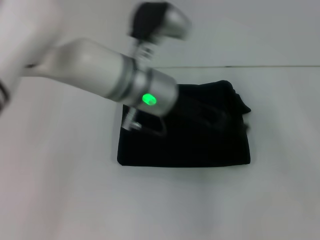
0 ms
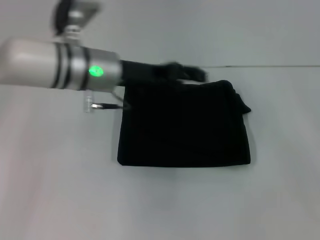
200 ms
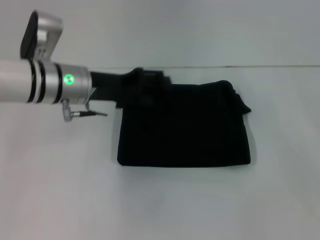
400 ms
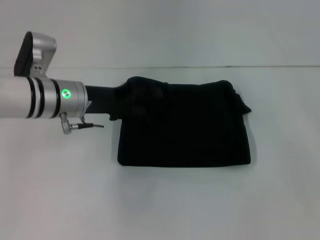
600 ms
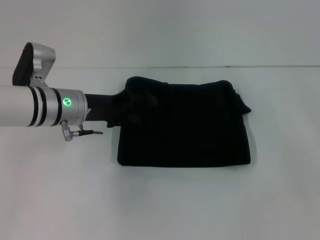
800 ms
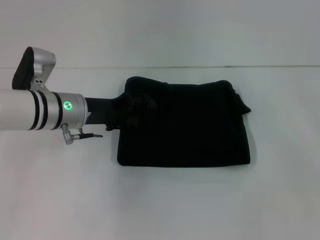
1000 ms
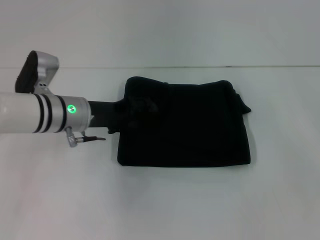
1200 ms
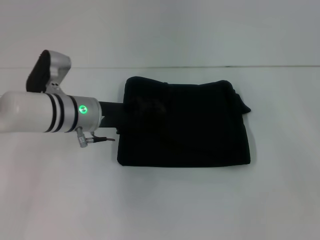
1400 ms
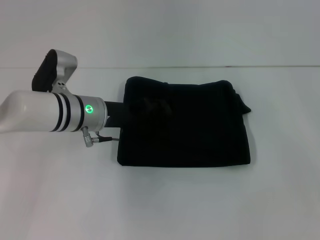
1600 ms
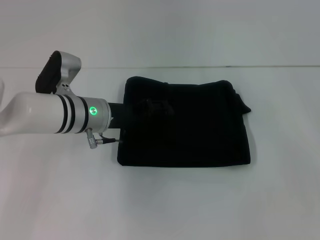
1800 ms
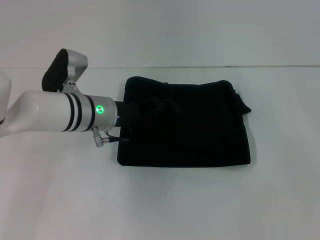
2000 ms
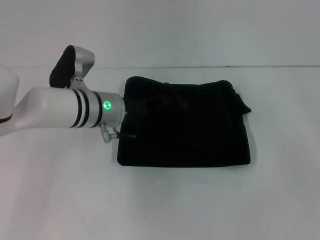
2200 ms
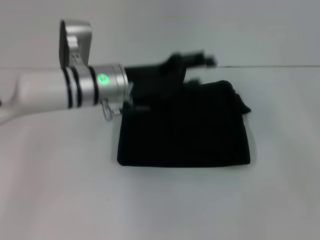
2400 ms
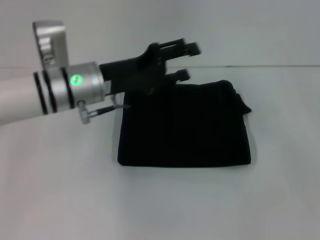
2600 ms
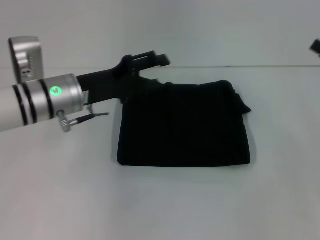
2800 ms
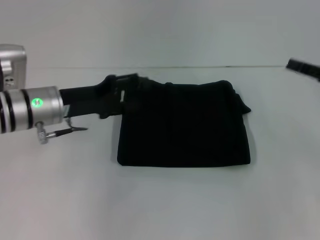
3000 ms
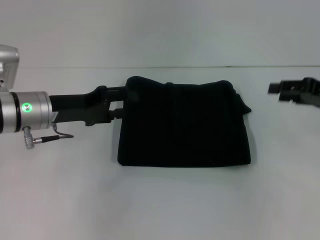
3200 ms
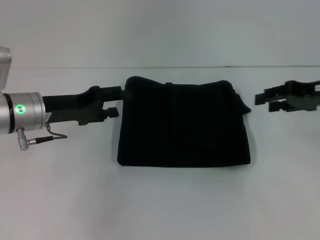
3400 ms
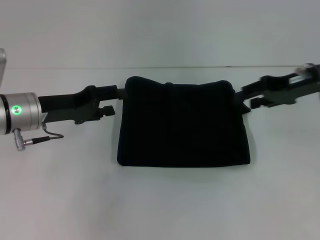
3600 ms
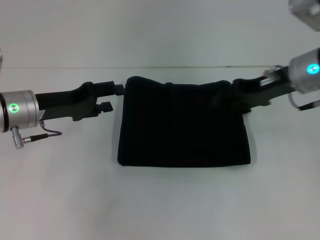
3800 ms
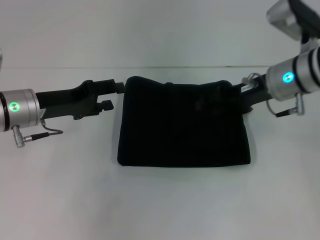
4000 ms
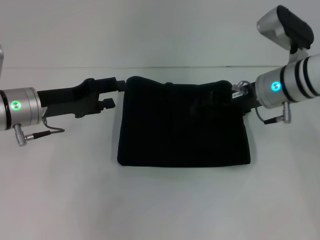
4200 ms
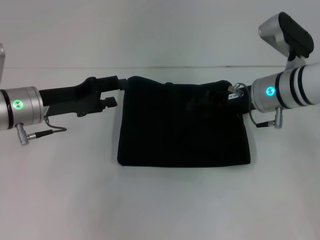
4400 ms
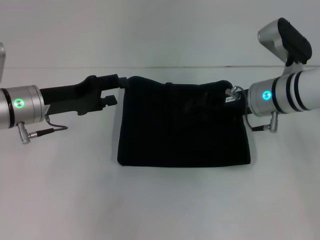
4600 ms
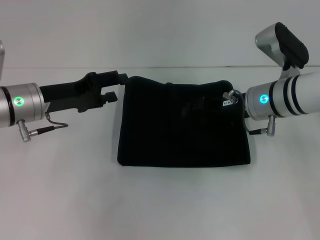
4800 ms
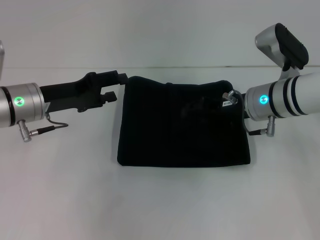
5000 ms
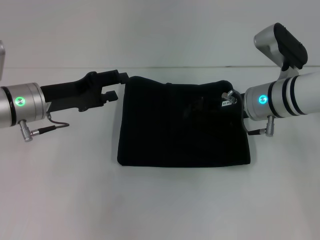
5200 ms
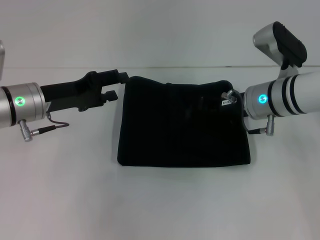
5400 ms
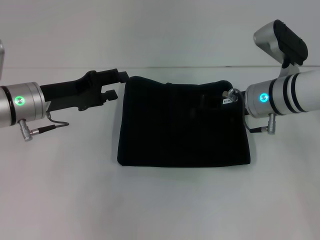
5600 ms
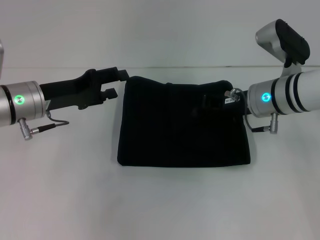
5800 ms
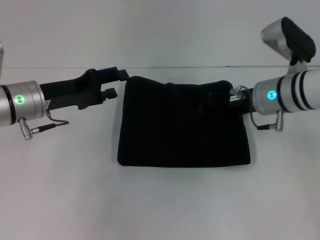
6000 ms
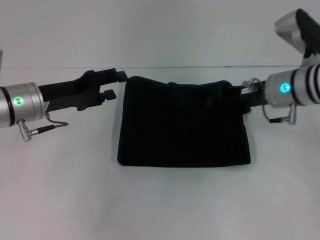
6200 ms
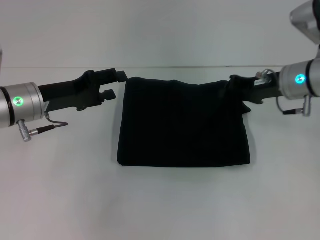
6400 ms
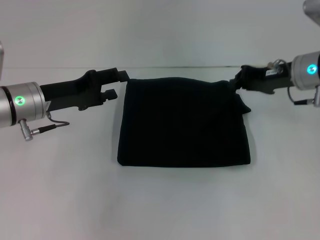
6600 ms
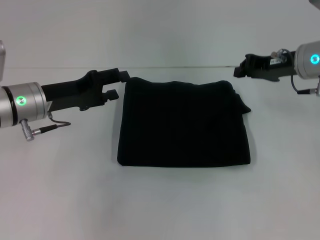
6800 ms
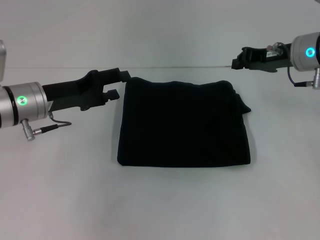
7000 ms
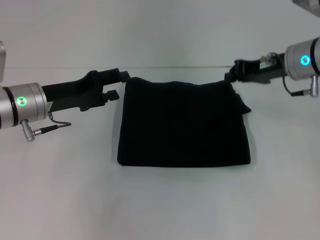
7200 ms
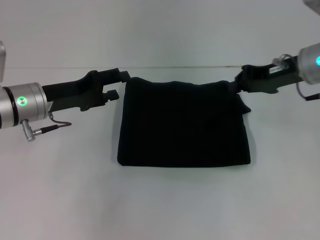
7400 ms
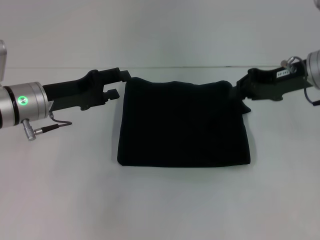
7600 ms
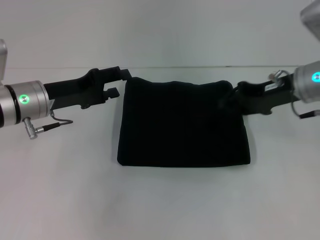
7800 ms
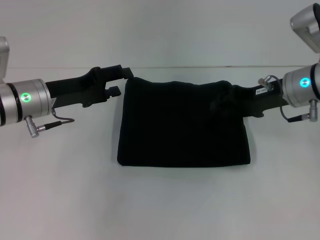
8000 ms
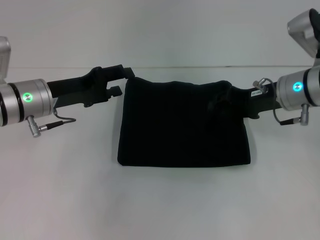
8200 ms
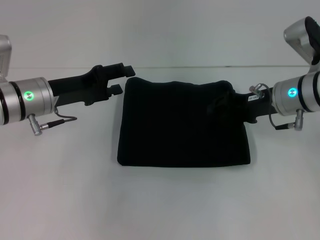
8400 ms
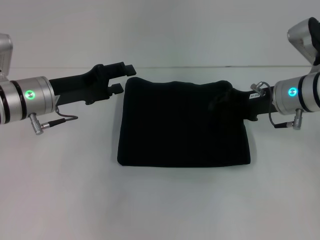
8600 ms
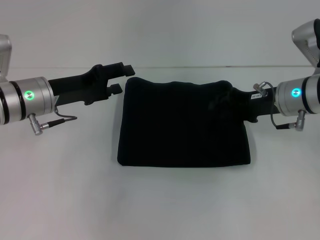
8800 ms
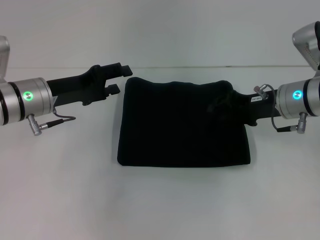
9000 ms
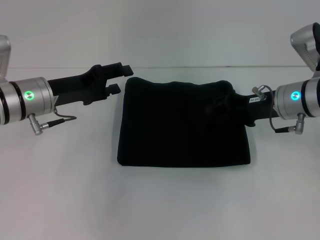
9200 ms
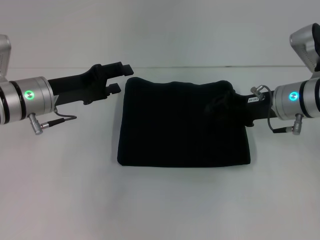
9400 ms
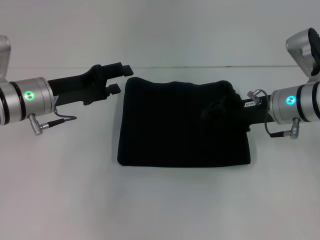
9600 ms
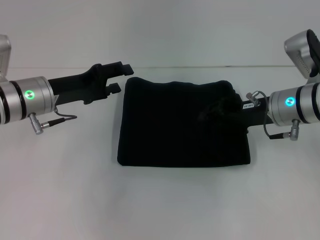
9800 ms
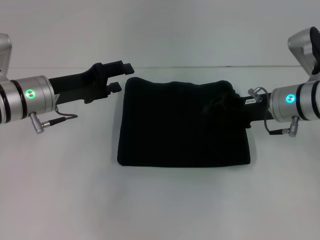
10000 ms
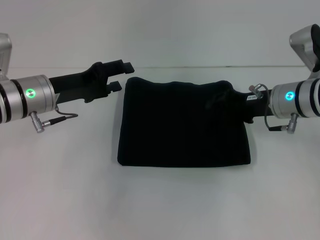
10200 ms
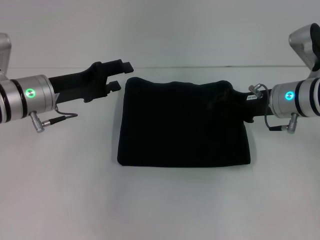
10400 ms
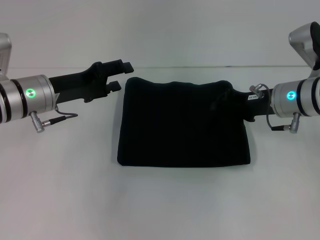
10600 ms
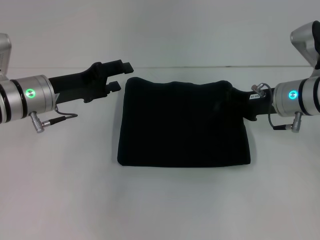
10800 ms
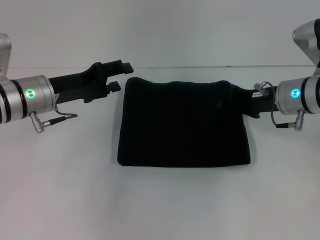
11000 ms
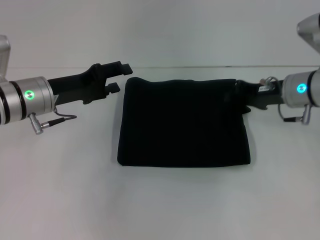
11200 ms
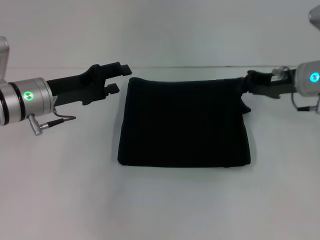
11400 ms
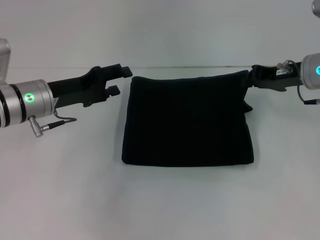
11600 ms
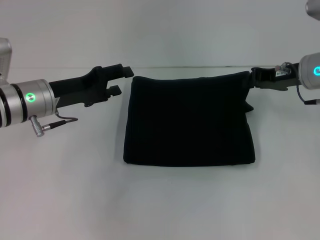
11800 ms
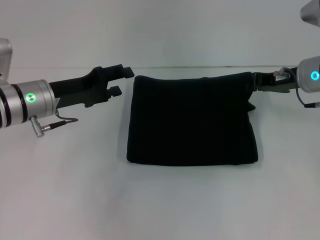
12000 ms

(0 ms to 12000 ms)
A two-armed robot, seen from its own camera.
0 ms - 1600 ms: The left gripper goes roughly 15 cm to the left and downward.
1600 ms - 3000 ms: The left gripper is displaced to the left by some 5 cm.
3000 ms - 4400 ms: The right gripper heads to the left, covering some 15 cm.
4400 ms - 6000 ms: The right gripper closes up.
6000 ms - 7600 ms: The right gripper travels to the right and upward by some 10 cm.
7600 ms - 9000 ms: The right gripper moves downward, about 5 cm, and opens its fingers.
9000 ms - 10400 ms: The grippers move only a little.
10400 ms - 12000 ms: The right gripper shifts by about 5 cm.

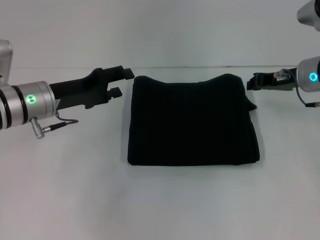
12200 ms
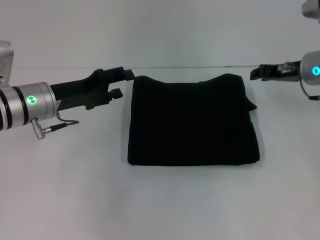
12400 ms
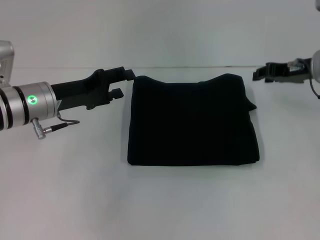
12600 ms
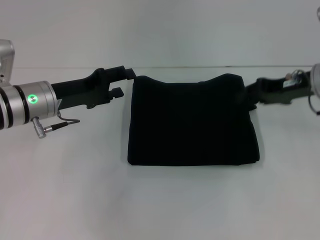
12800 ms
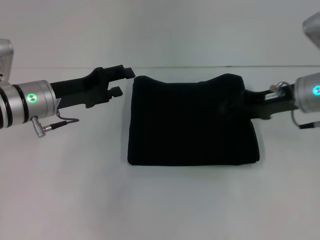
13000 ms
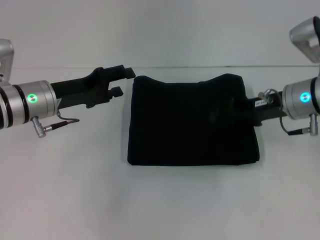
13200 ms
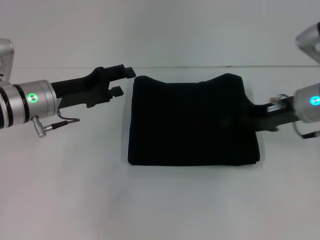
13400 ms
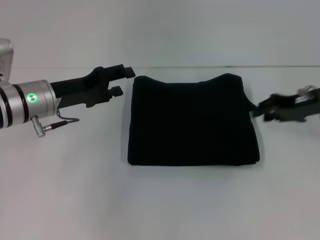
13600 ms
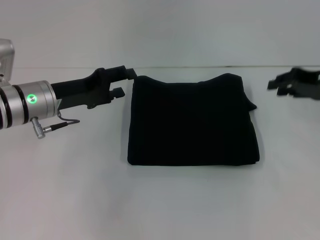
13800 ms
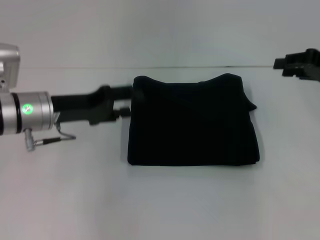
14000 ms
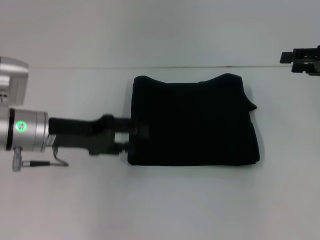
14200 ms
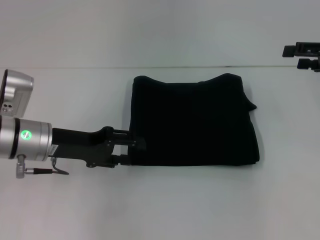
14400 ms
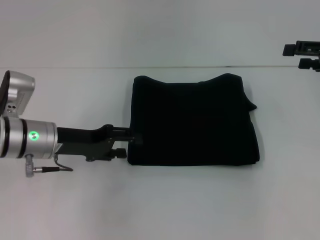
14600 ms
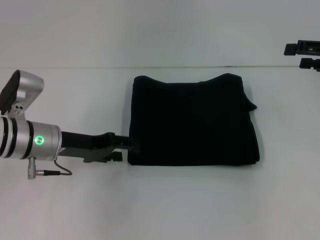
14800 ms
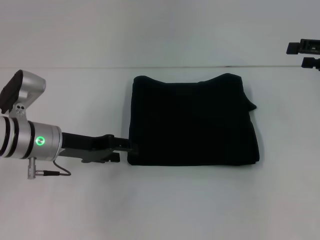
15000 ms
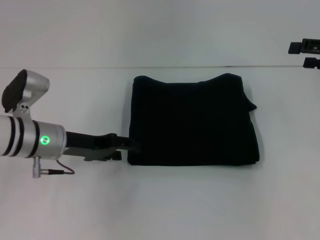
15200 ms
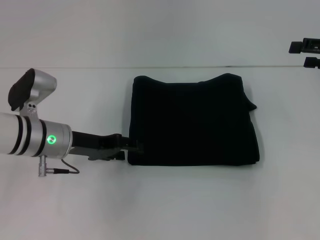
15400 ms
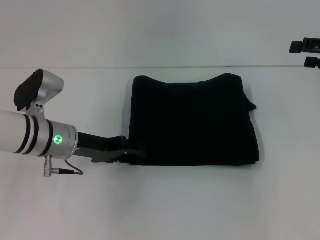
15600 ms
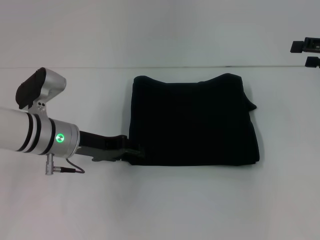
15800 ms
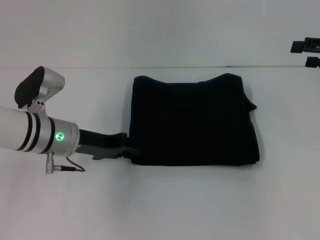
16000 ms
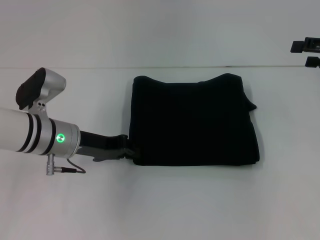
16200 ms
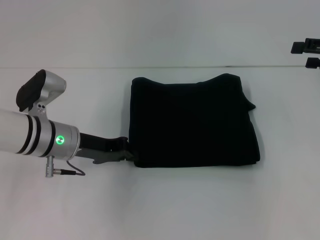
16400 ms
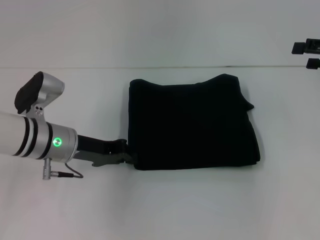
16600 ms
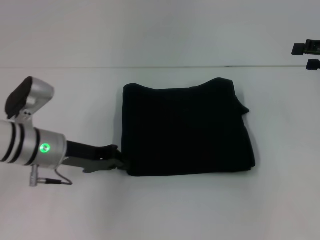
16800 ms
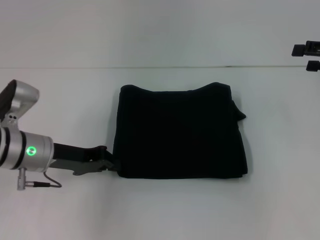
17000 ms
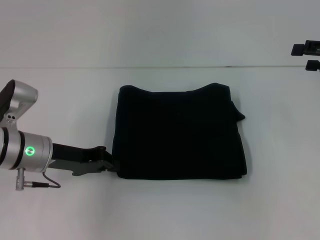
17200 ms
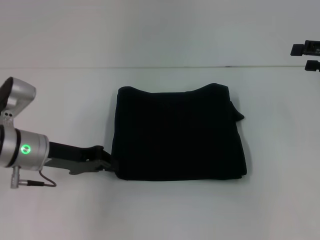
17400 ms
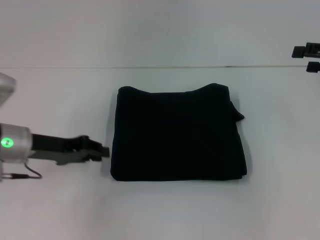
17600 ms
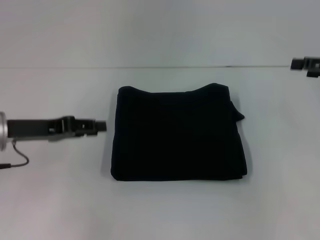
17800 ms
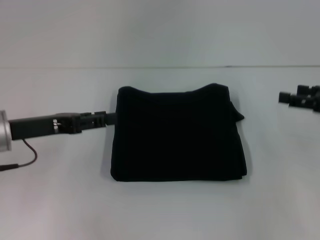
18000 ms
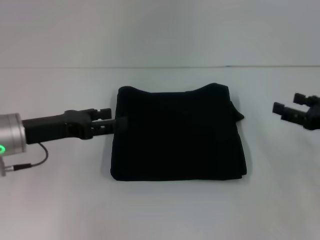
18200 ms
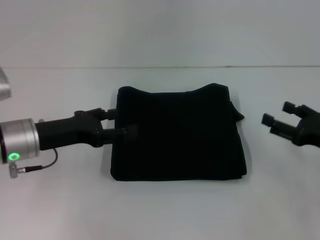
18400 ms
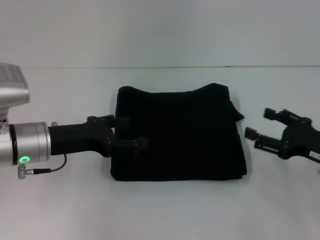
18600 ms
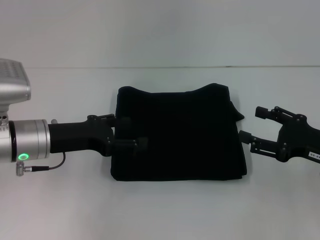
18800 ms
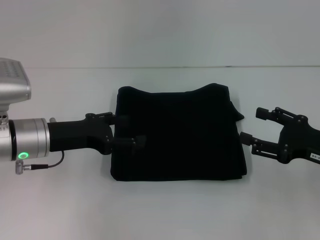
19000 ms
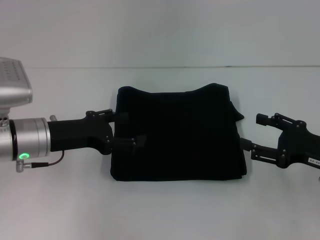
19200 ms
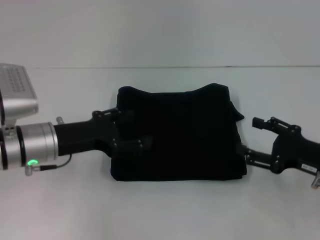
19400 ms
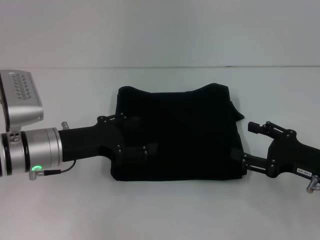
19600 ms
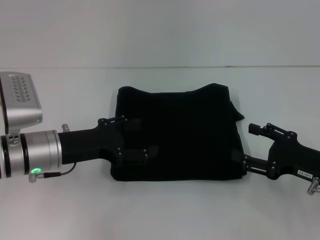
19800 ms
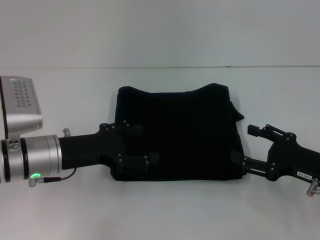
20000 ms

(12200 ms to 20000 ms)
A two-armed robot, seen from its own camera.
12200 ms - 13800 ms: The right gripper shifts about 5 cm to the right.
13800 ms - 15400 ms: The right gripper changes place by roughly 5 cm, and opens its fingers.
15400 ms - 16800 ms: The left gripper closes.
16800 ms - 18400 ms: The left gripper opens. The right gripper shifts approximately 15 cm downward and backward.

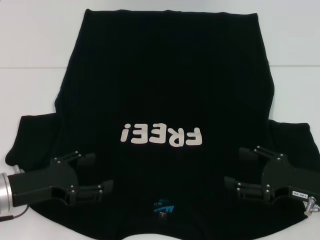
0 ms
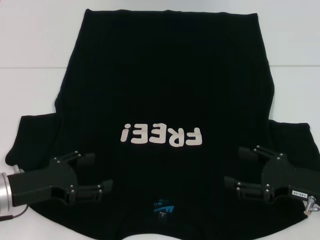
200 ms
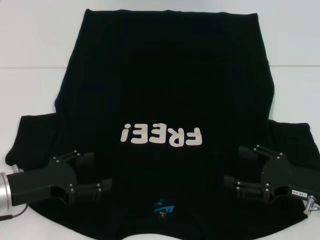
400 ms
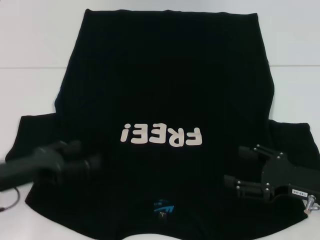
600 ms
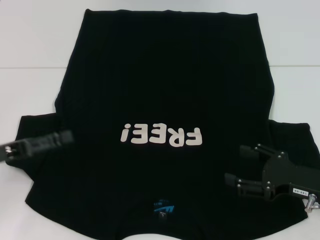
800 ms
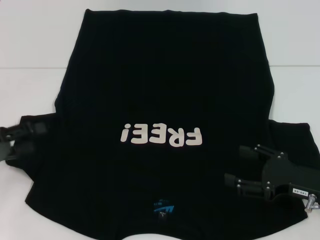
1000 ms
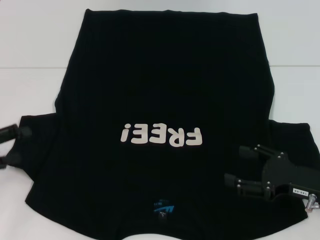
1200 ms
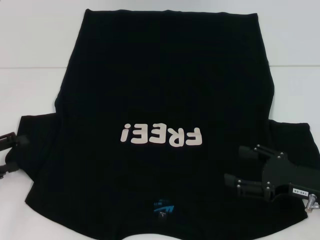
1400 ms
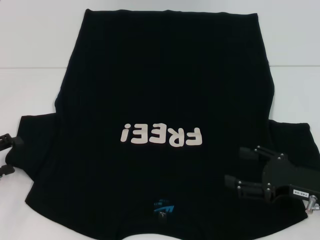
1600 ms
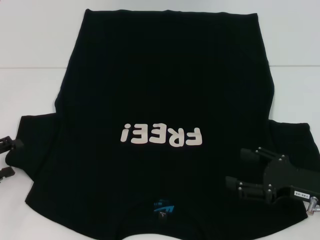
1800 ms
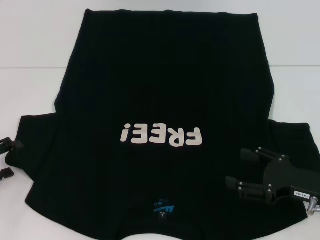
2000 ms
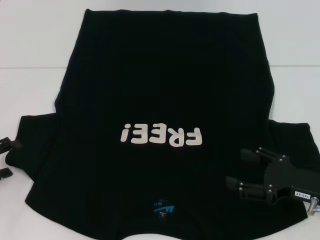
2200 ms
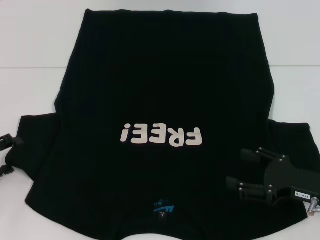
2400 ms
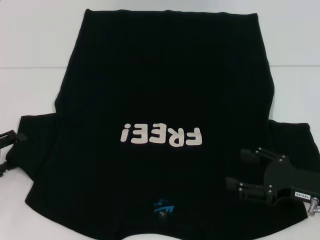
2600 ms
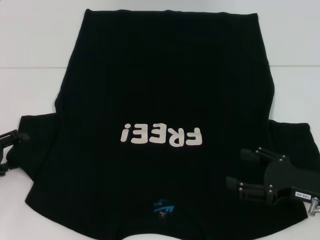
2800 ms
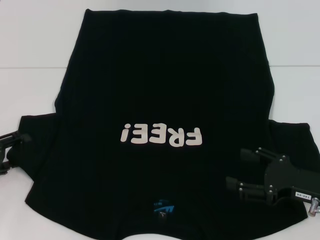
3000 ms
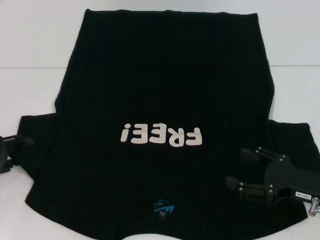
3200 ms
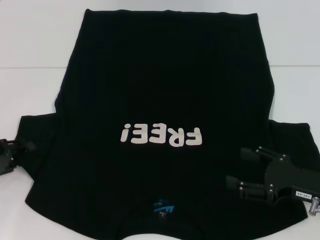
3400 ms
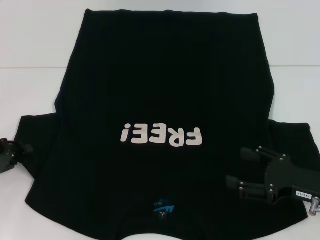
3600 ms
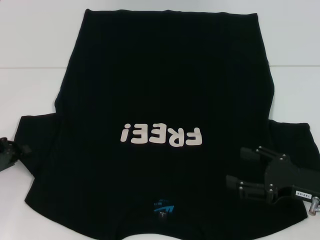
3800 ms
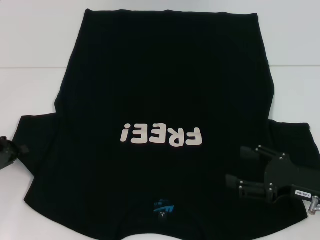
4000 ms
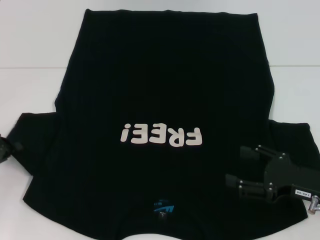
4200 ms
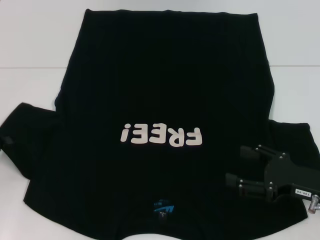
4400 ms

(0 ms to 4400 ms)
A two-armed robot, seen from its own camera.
0 ms - 1400 ms: The left gripper heads to the left, covering roughly 10 cm.
1400 ms - 3000 ms: The grippers move only a little.
3000 ms - 4400 ms: The left gripper closes its fingers.
